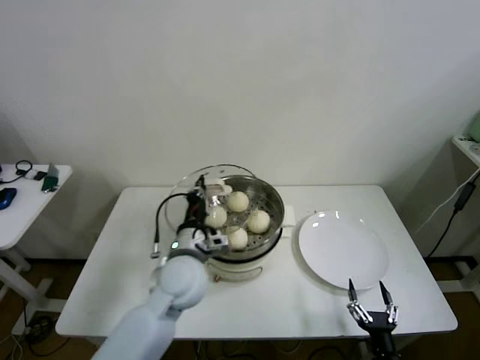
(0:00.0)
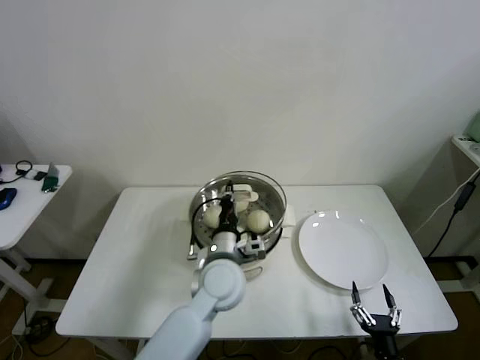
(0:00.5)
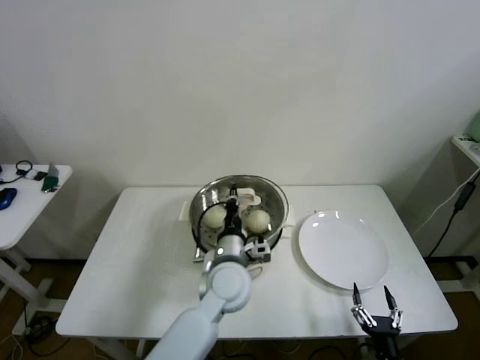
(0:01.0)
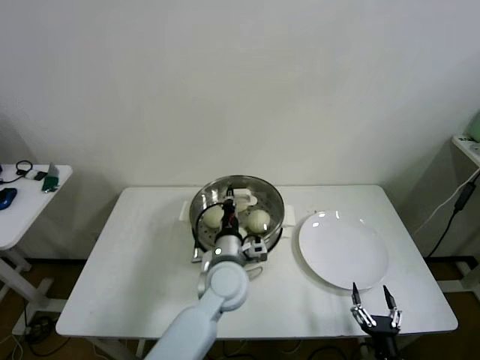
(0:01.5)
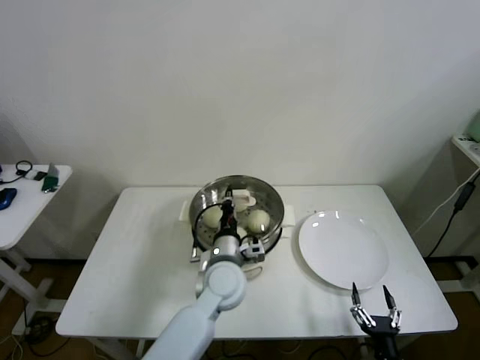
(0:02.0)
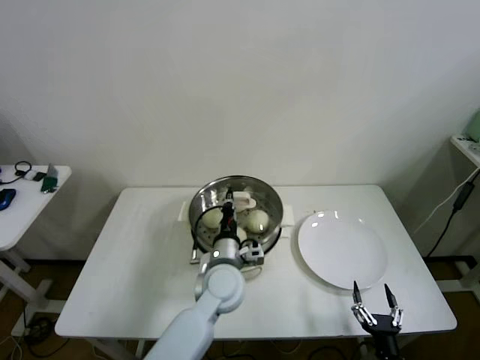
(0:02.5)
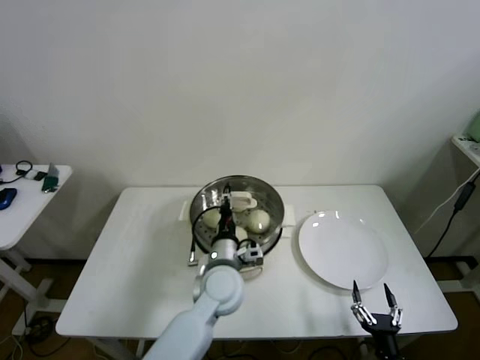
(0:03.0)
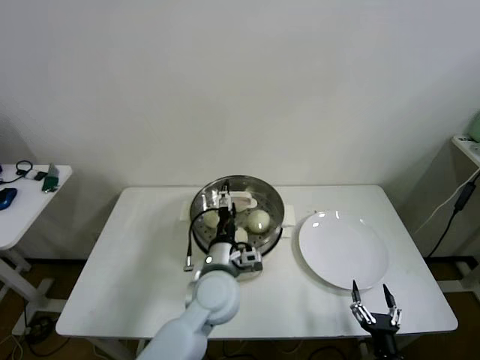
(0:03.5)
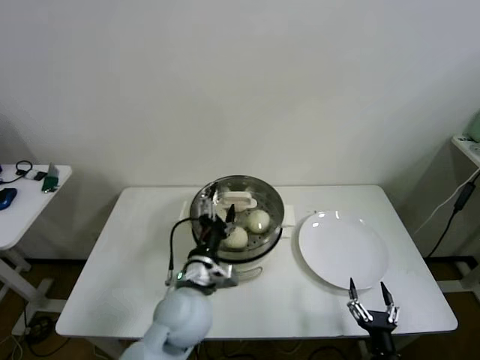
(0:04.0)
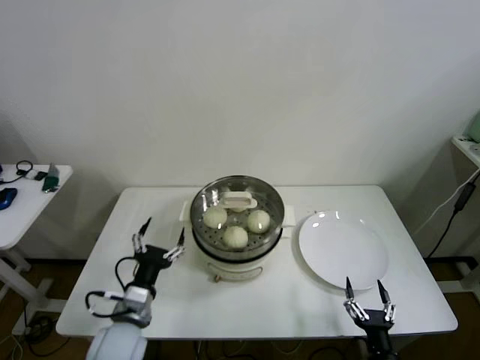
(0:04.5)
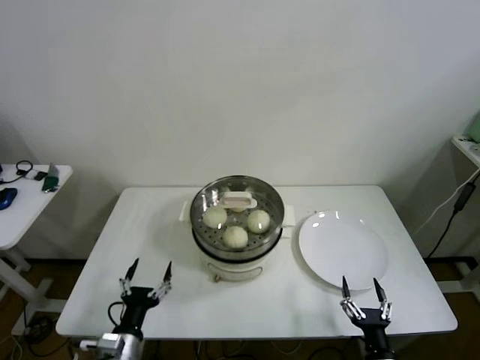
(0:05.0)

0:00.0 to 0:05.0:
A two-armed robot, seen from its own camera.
Step, 0:00.0 to 0:02.5: Place the pot lid on the steamer with left gripper.
0:00.0 to 0:02.5: The left gripper is displaced to the right and downward by about 10 cm.
0:02.5 to 0:05.0: The left gripper shifts roughly 30 cm to the left and backward, and opens.

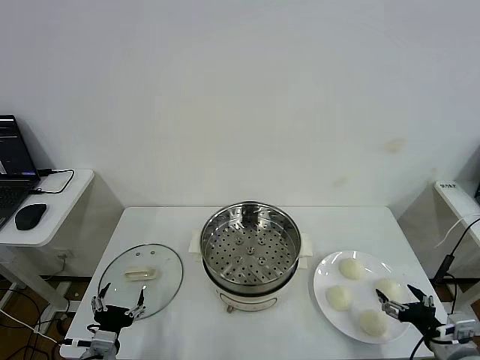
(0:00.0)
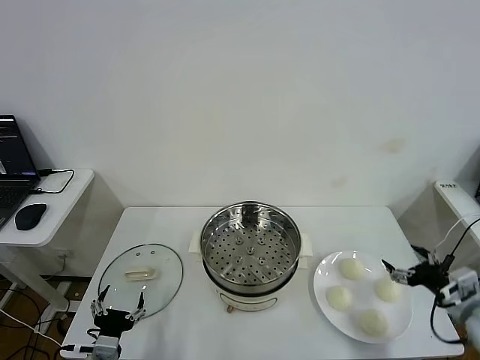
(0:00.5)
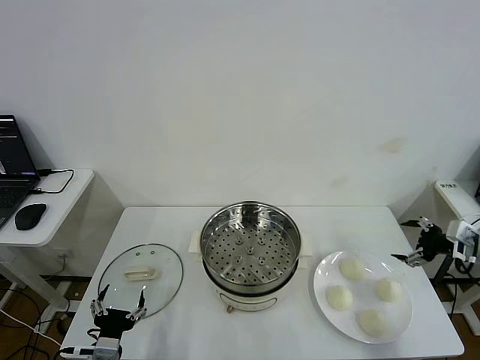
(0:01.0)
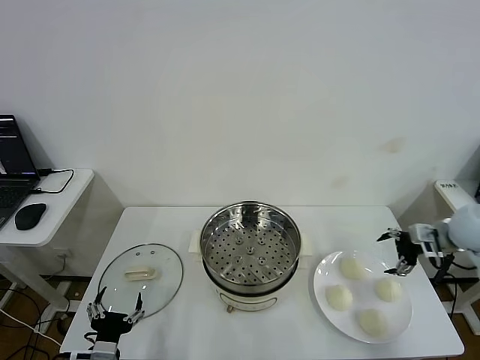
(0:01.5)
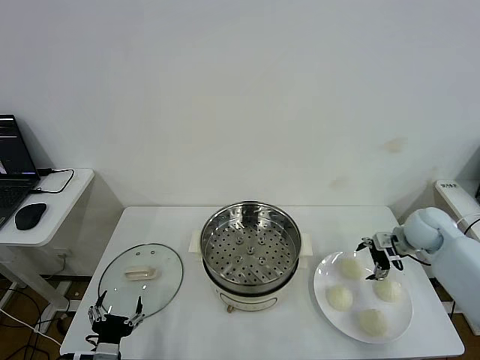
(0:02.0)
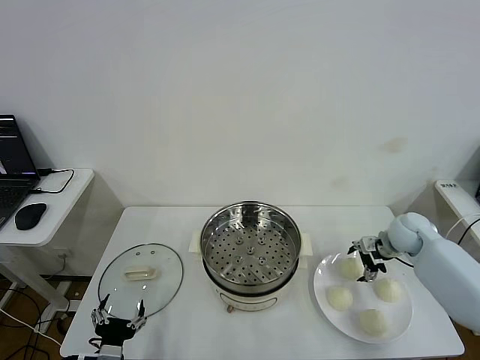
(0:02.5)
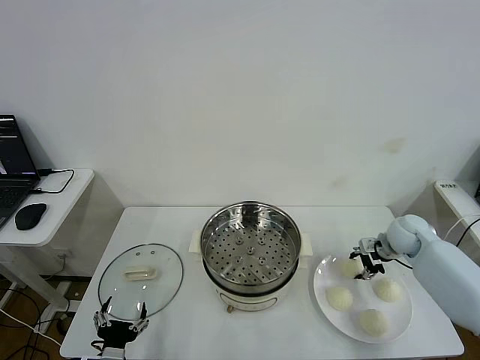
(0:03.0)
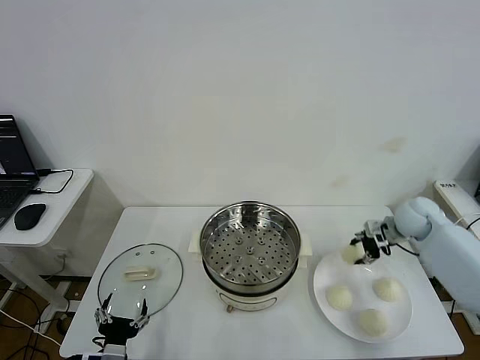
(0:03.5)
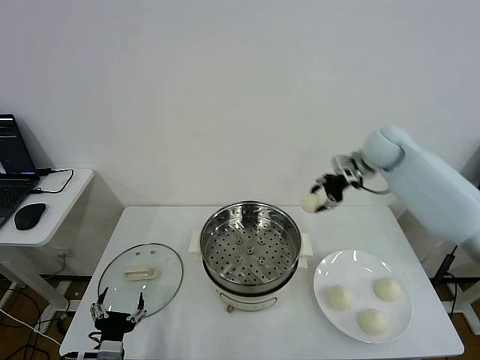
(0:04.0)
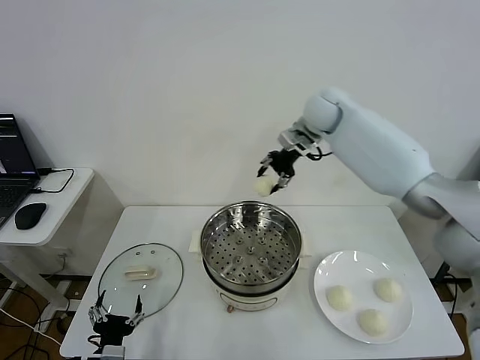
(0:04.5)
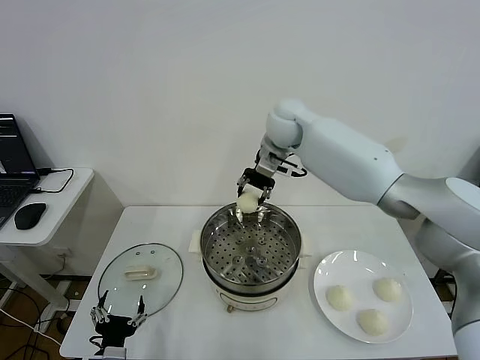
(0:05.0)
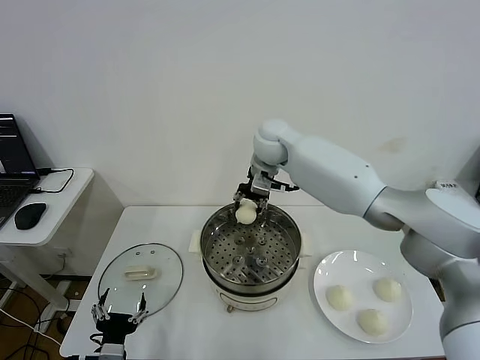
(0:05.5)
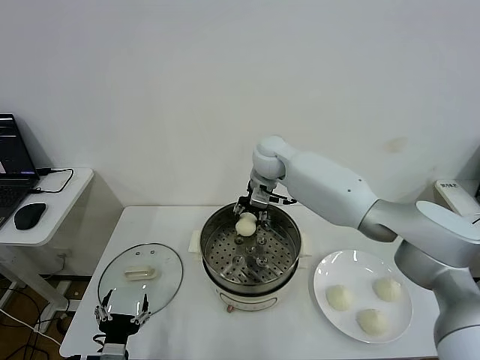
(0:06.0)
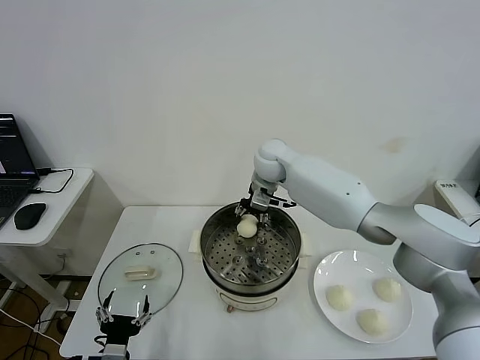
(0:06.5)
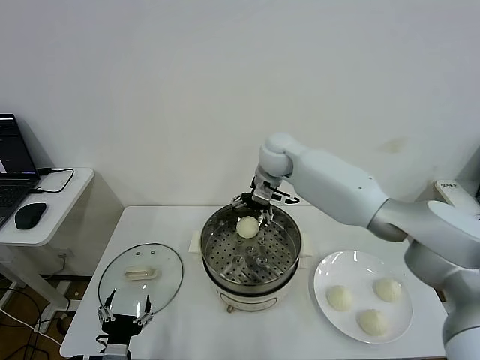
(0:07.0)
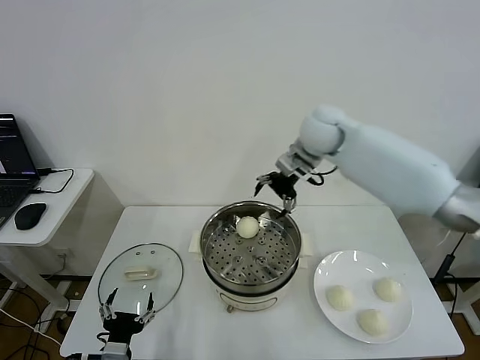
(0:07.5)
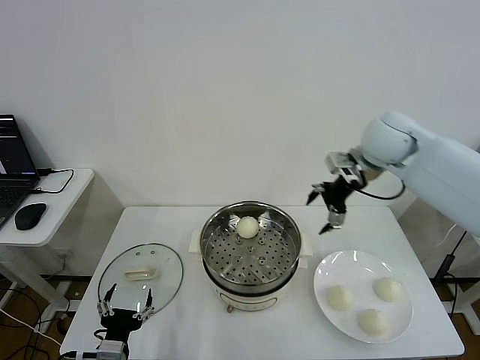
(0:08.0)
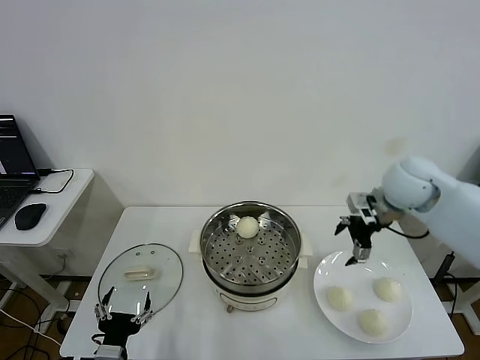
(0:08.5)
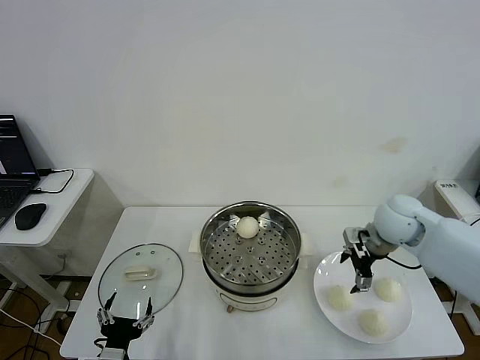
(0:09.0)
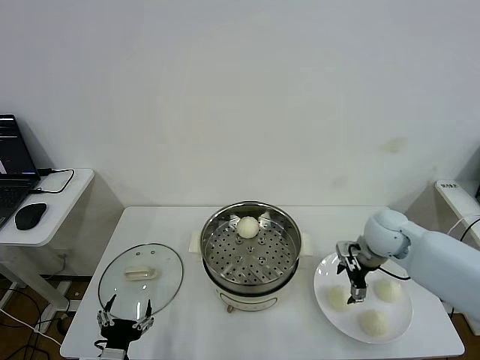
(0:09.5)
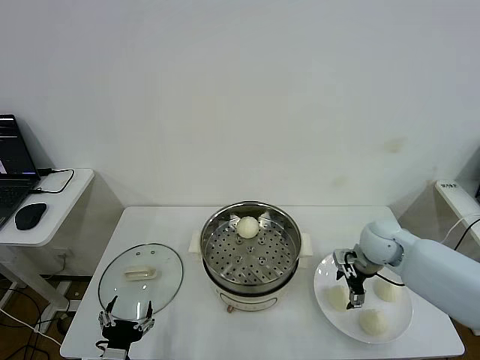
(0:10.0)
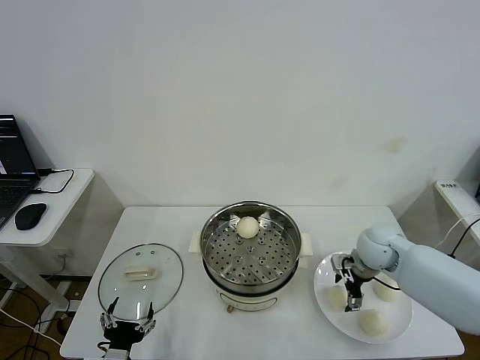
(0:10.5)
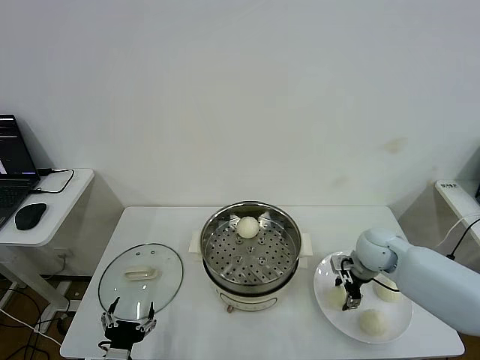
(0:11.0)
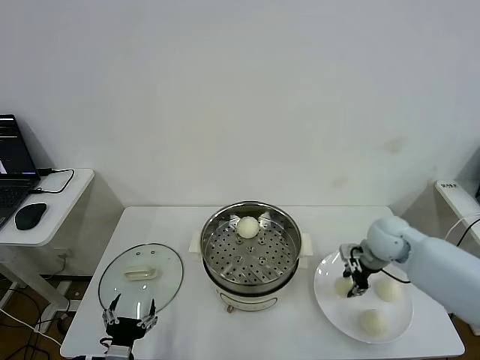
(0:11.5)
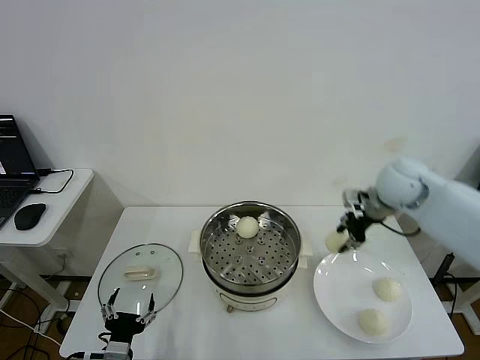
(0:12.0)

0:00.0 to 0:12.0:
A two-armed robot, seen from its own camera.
Step, 0:00.0 to 0:03.0: Grasp the baozi in the plate with right gripper.
Step, 0:03.5 to 0:06.5: Place the baozi on the steamer with right gripper.
Step, 0:07.0 to 0:11.0: Grasp the baozi in the plate with right gripper.
0:02.0 to 0:04.0: The right gripper travels upward, to the left and forward by roughly 25 cm, and closes.
0:04.0 to 0:06.0: The right gripper goes about 20 cm to the left.
0:06.0 to 0:08.0: The right gripper heads to the right, upward and backward, covering some 25 cm, and opens.
0:08.0 to 0:10.0: The right gripper heads downward, covering some 20 cm.
0:10.0 to 0:12.0: The right gripper shifts approximately 15 cm upward, and closes its fingers.

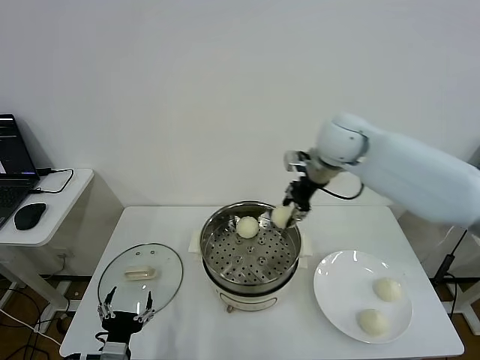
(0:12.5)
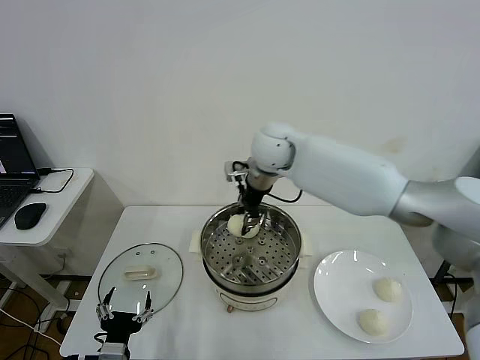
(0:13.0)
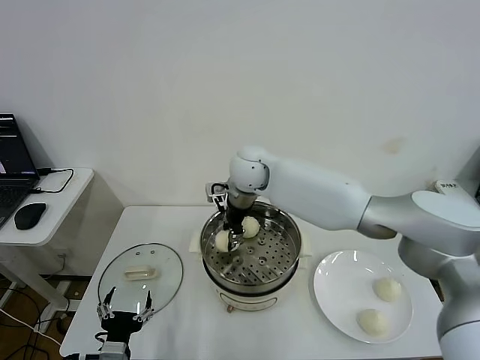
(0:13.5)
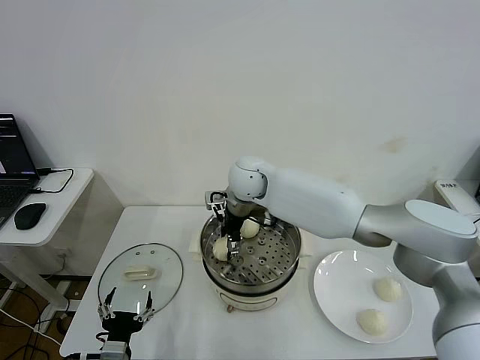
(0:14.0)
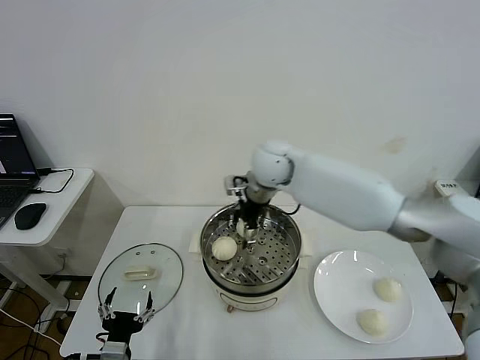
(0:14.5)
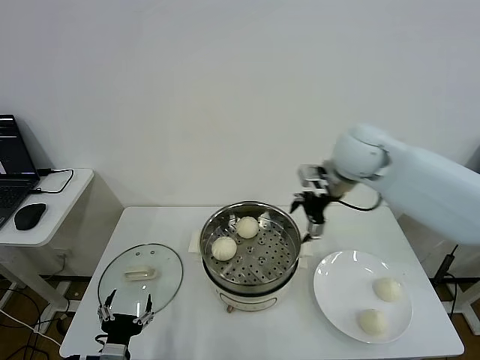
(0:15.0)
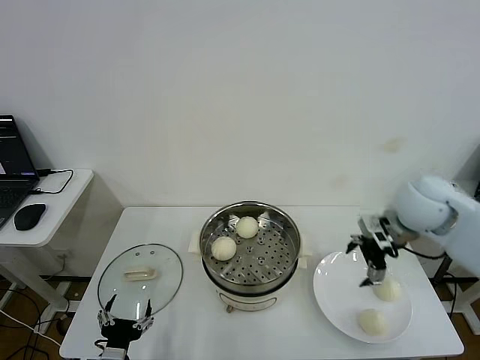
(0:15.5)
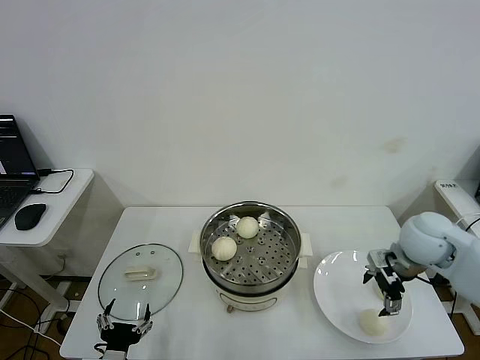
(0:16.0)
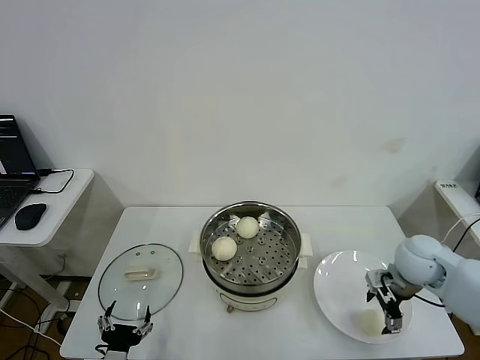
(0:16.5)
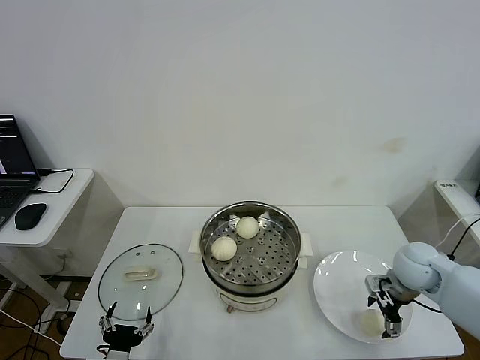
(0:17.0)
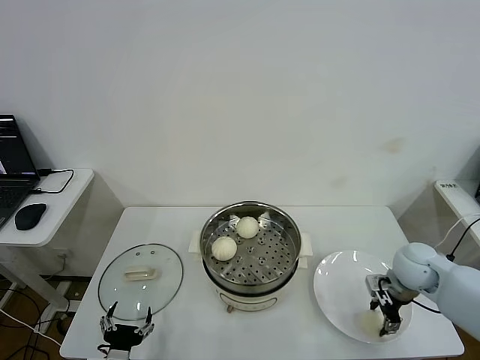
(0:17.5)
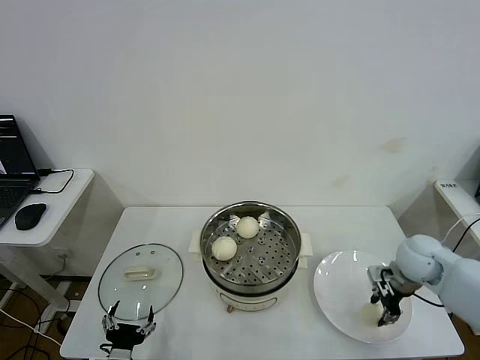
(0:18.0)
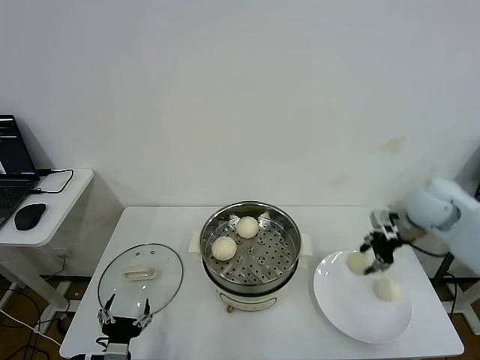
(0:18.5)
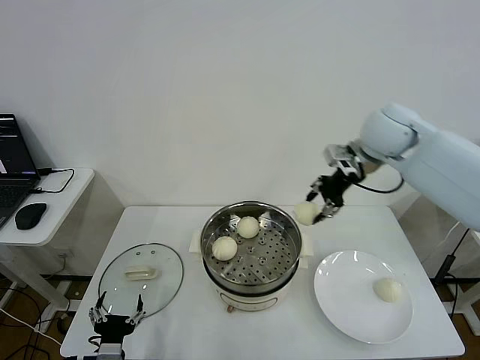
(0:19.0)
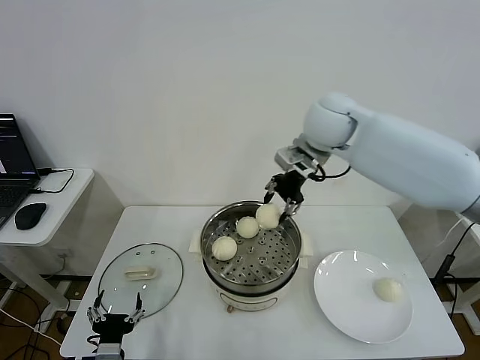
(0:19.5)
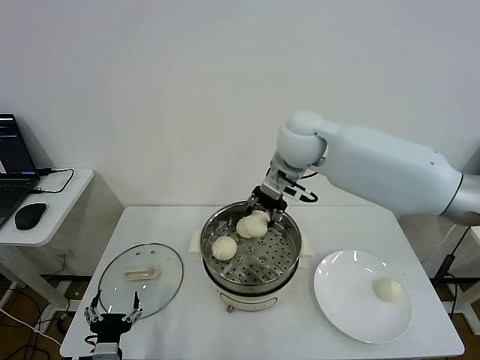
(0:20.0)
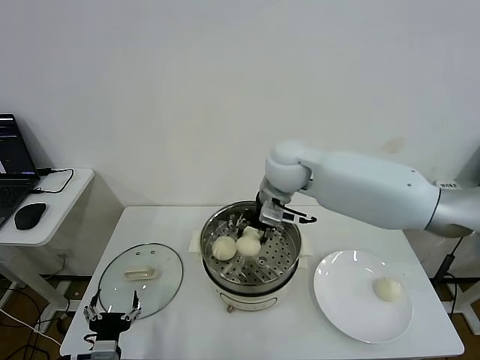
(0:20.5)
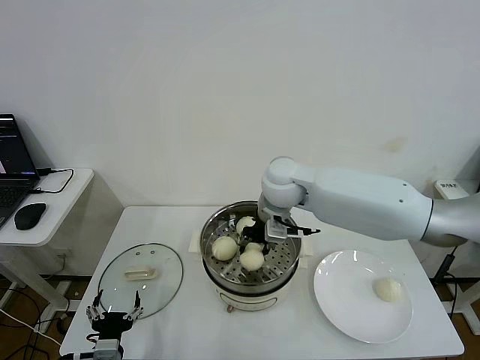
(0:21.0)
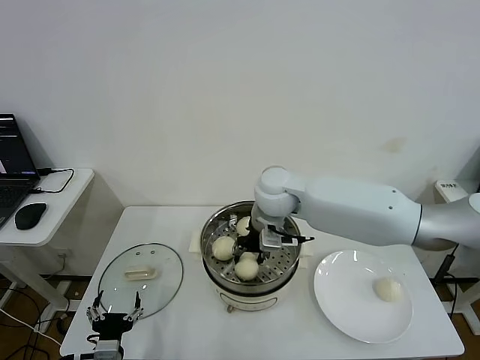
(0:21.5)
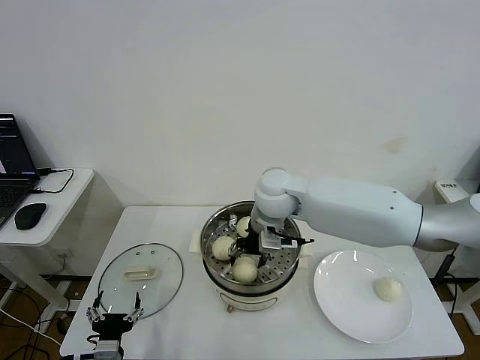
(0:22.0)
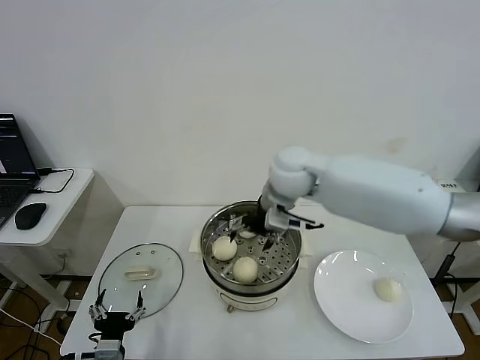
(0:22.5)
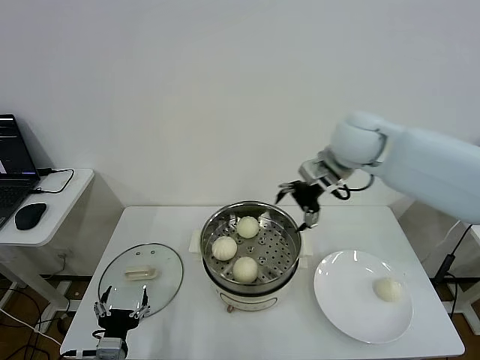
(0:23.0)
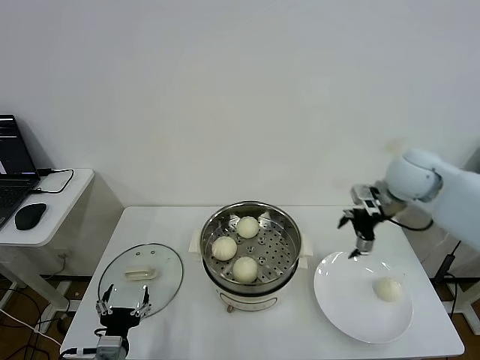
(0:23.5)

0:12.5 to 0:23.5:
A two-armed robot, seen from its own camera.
Step, 0:12.5 to 0:14.0: Place the baozi on the steamer with right gripper.
Step, 0:14.5 to 0:17.5: Grasp the baozi in the plate with right gripper.
Step, 0:18.0 to 0:22.0: Place the baozi on the steamer with right gripper.
0:12.5 to 0:14.5: The right gripper goes about 10 cm to the left and downward, and opens its fingers.
0:14.5 to 0:16.0: The right gripper heads to the right and backward, covering approximately 30 cm.
0:16.0 to 0:18.0: The right gripper moves downward, about 5 cm, and closes its fingers.
0:18.0 to 0:20.0: The right gripper travels to the left, upward and forward by some 35 cm.
0:20.0 to 0:21.5: The right gripper moves downward, some 10 cm.
0:21.5 to 0:23.5: The right gripper travels to the right by roughly 25 cm, and opens.
